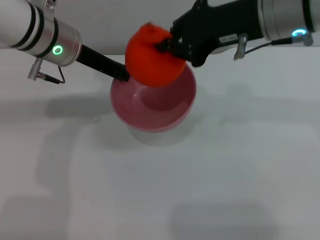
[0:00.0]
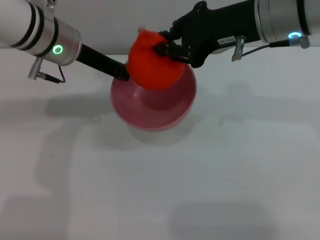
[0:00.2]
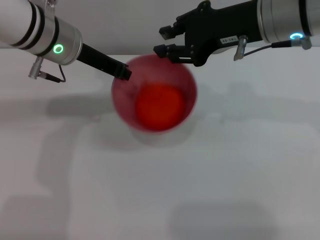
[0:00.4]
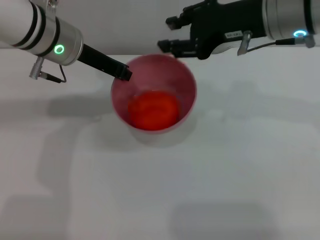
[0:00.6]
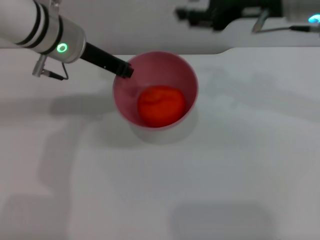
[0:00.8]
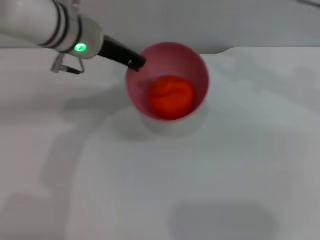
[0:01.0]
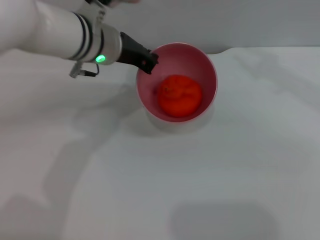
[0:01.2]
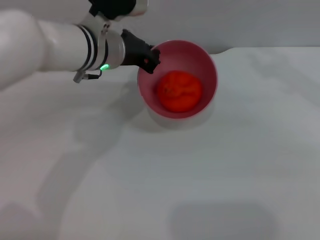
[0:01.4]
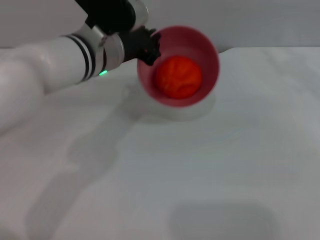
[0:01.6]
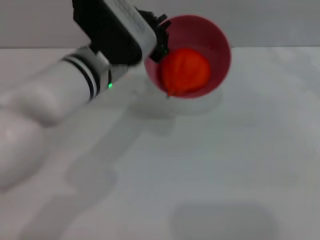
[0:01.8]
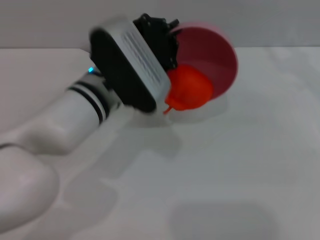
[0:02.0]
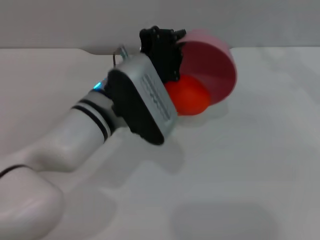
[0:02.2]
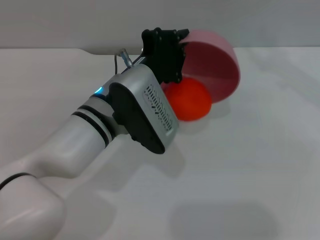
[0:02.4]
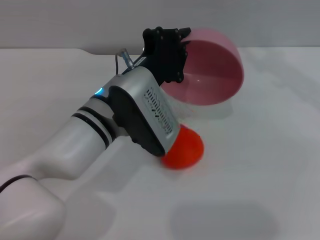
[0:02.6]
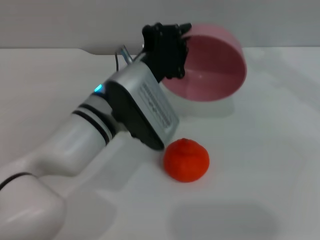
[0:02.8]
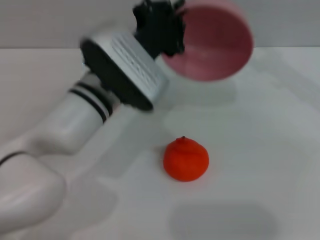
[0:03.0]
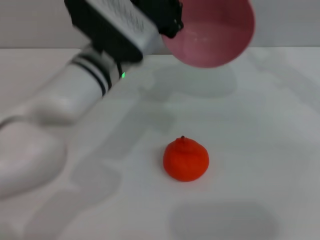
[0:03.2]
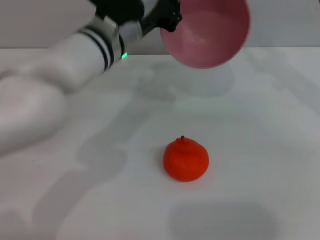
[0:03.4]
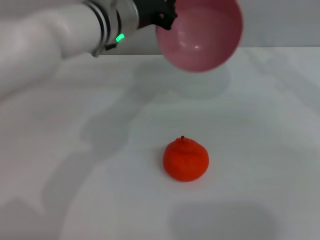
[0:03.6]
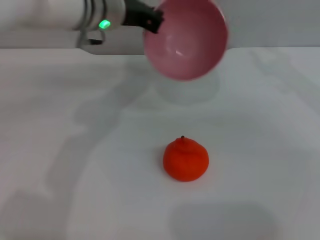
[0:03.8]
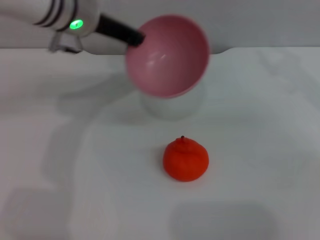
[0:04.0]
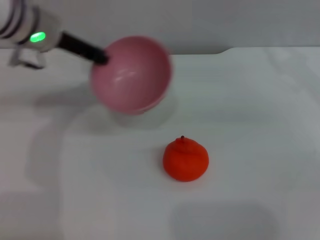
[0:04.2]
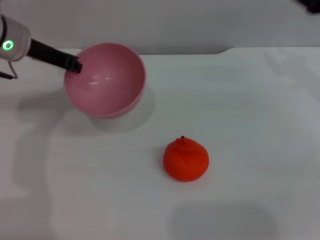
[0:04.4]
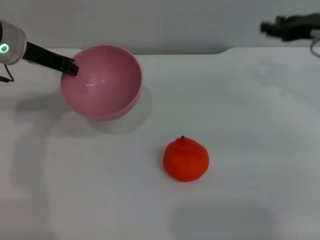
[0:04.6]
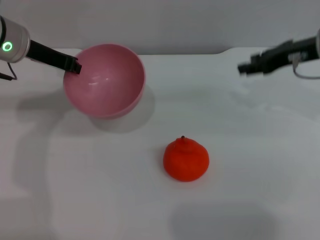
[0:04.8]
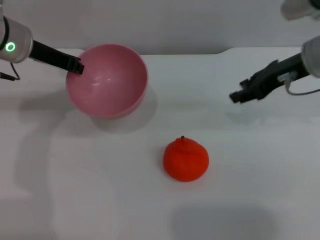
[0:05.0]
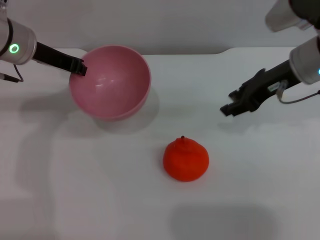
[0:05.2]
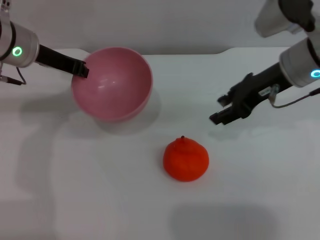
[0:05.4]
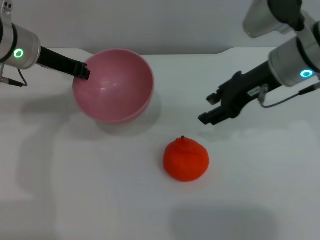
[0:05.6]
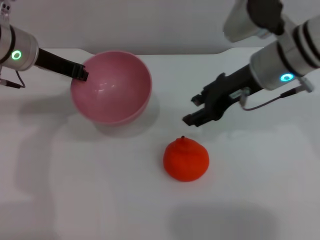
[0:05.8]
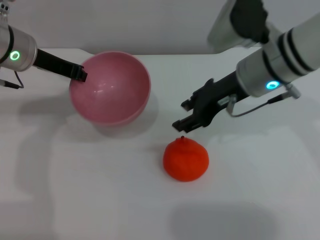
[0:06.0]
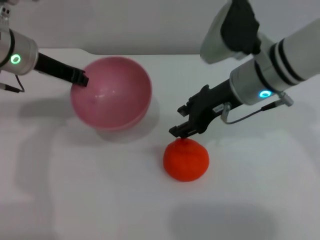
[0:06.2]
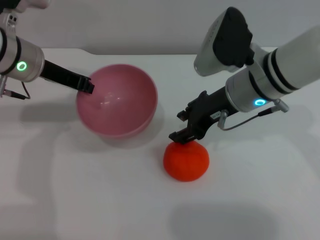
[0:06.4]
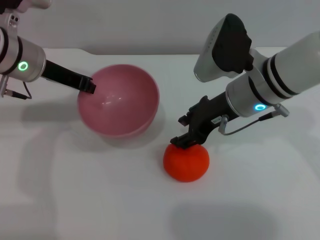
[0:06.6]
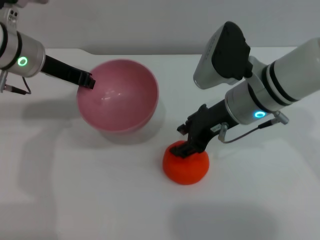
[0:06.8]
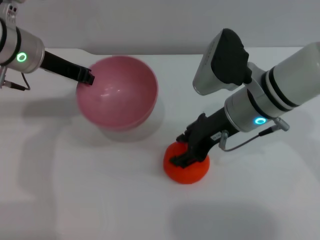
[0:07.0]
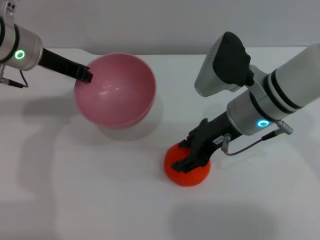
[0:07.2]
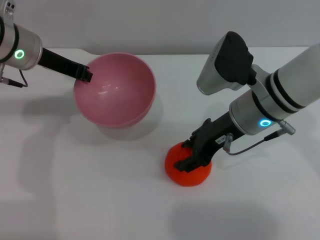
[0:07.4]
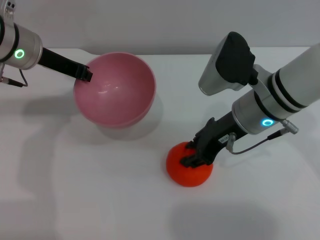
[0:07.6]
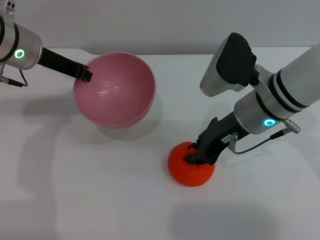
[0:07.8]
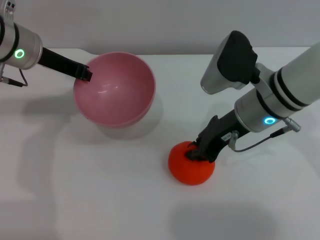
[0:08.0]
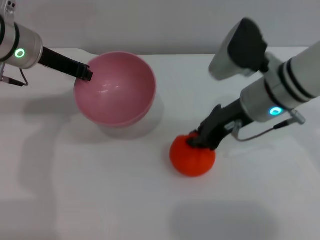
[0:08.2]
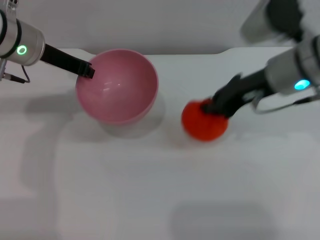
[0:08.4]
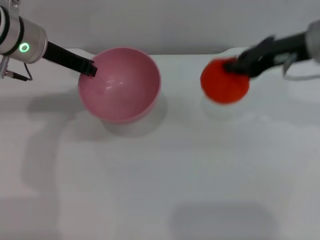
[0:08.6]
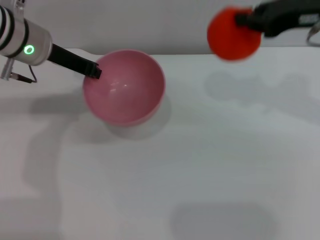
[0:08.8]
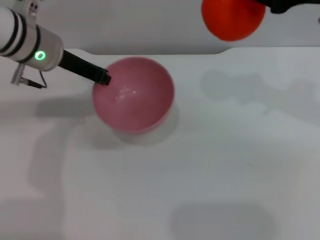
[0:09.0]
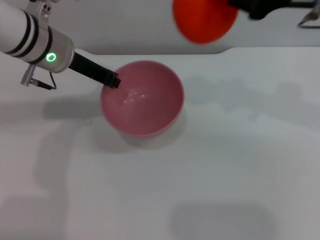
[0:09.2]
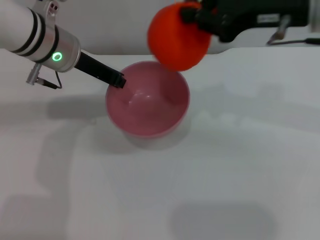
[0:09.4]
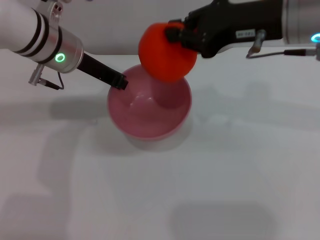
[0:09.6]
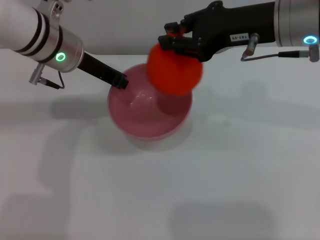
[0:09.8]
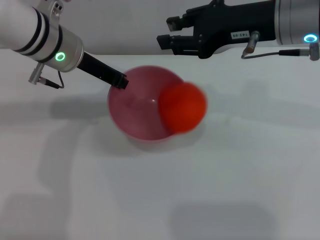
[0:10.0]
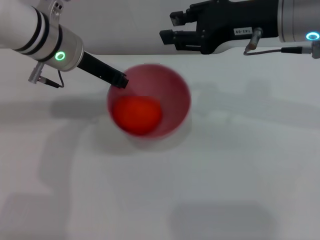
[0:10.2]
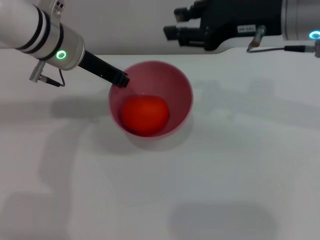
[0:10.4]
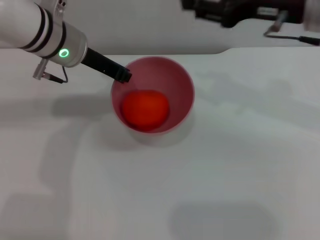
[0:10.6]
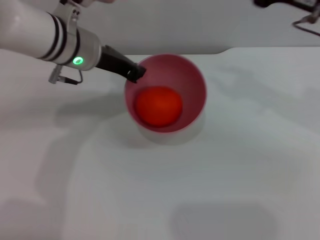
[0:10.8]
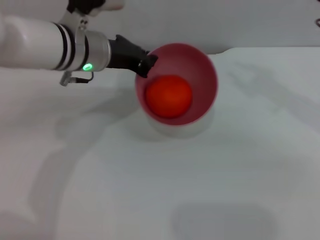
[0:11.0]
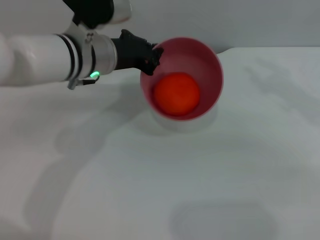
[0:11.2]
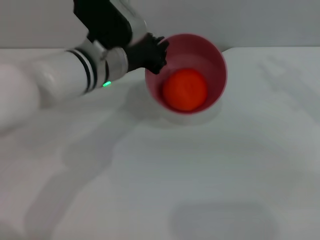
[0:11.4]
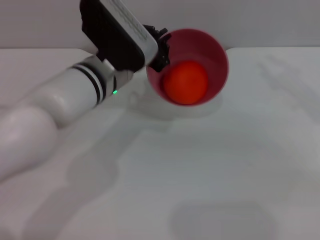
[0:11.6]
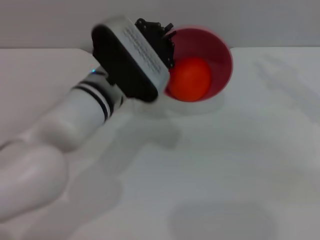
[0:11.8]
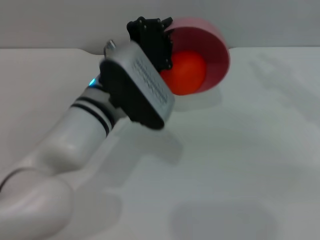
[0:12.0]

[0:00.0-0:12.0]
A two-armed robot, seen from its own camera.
Task of the whole recording: put the orange into the pink bowl and pour it out repeatedly.
Step, 0.6 to 3.0 s: Pour the orange out of the bowl.
Step, 3.2 to 8.6 s: Pick up the orange with the right gripper.
Step, 8.8 to 10.2 s: Place the orange into the bowl.
0.0 to 1.6 s: The right gripper travels to the right by about 15 cm, and opens its fingers. The left gripper heads to the right, covering approximately 5 cm.
1.6 to 3.0 s: The left gripper shifts roughly 5 cm backward.
3.0 to 4.4 s: The right gripper moves roughly 5 cm. Meanwhile the left gripper heads to the left and forward, covering some 20 cm.
4.4 to 6.0 s: The right gripper shifts approximately 20 cm to the left.
7.6 to 9.0 s: The right gripper moves upward and to the right, approximately 20 cm, and closes.
9.0 to 10.4 s: The right gripper shifts roughly 5 cm to the left, and opens its fingers.
10.4 to 12.0 s: The left gripper shifts roughly 15 cm backward, to the right and downward; the right gripper shifts roughly 10 cm to the right.

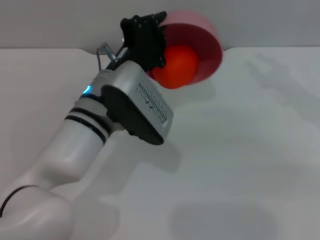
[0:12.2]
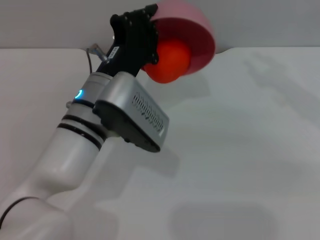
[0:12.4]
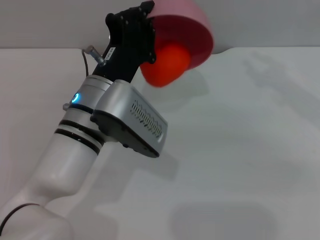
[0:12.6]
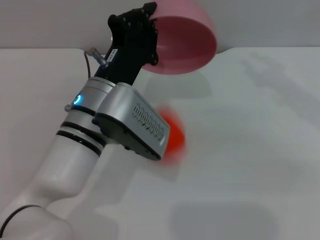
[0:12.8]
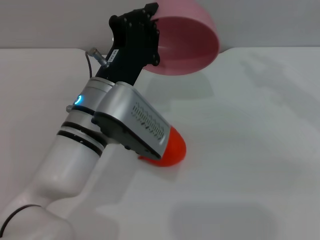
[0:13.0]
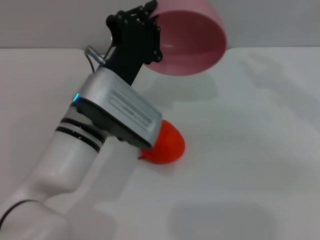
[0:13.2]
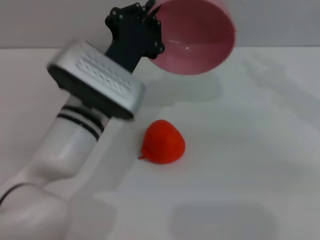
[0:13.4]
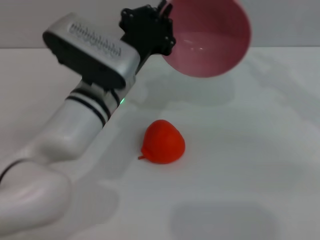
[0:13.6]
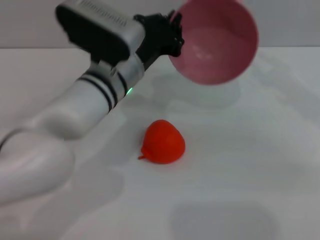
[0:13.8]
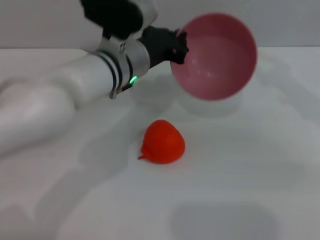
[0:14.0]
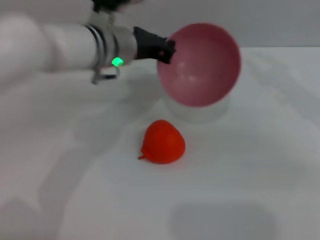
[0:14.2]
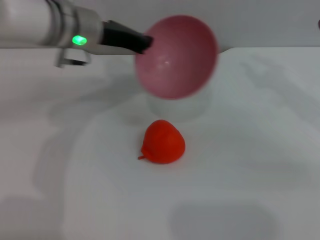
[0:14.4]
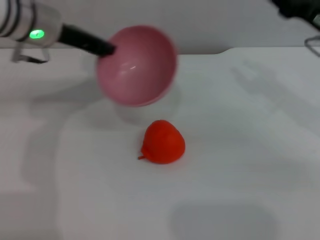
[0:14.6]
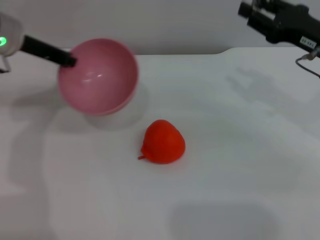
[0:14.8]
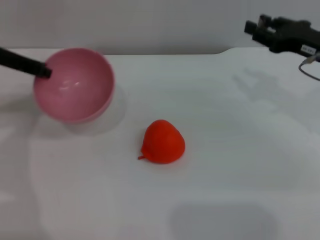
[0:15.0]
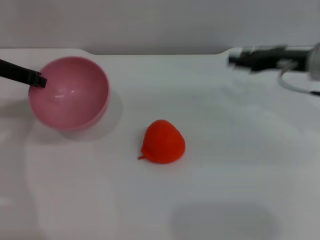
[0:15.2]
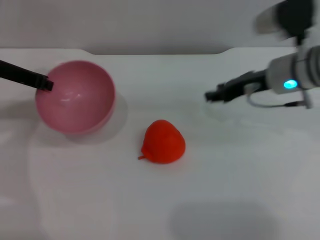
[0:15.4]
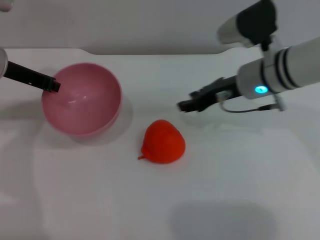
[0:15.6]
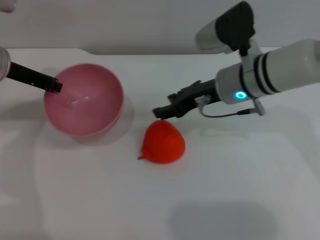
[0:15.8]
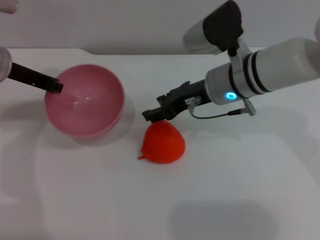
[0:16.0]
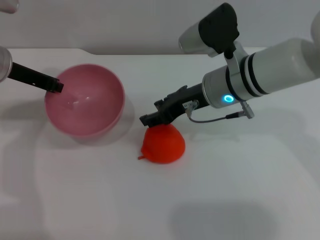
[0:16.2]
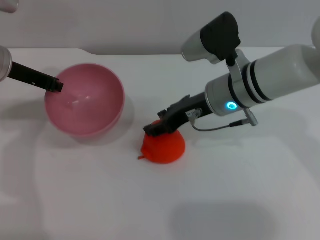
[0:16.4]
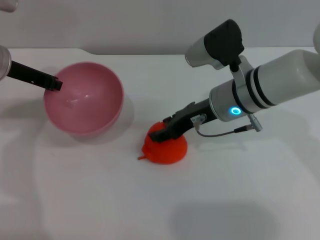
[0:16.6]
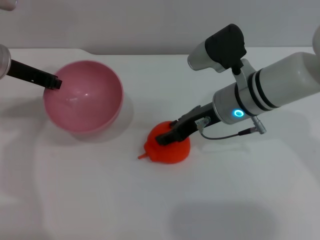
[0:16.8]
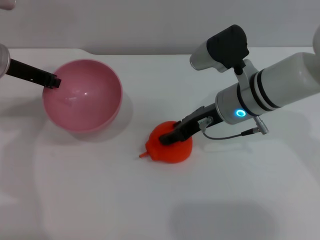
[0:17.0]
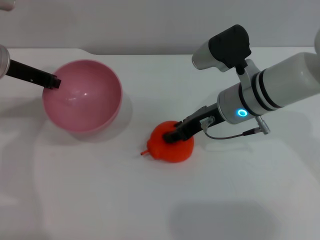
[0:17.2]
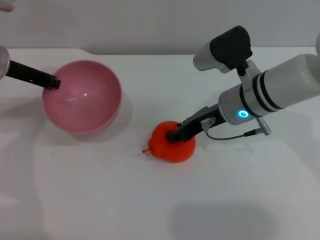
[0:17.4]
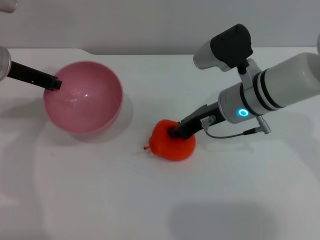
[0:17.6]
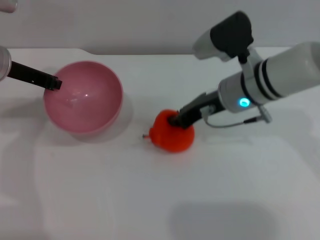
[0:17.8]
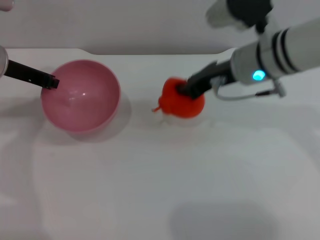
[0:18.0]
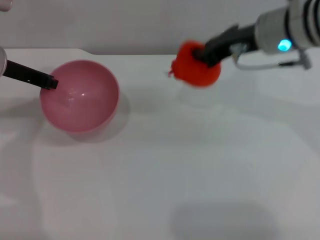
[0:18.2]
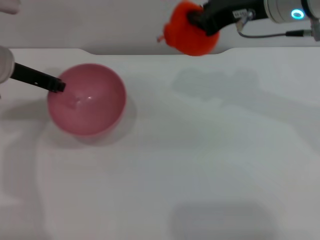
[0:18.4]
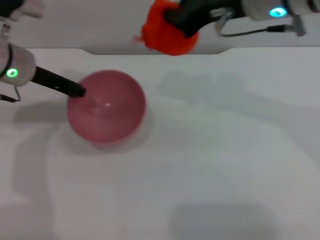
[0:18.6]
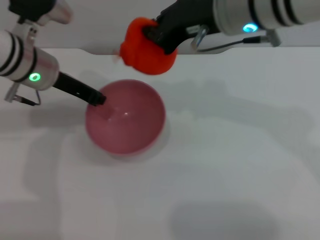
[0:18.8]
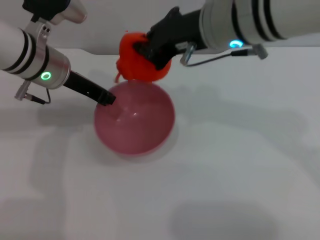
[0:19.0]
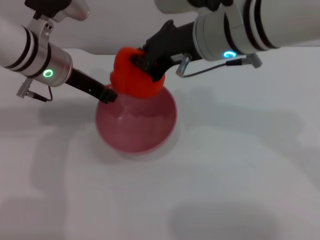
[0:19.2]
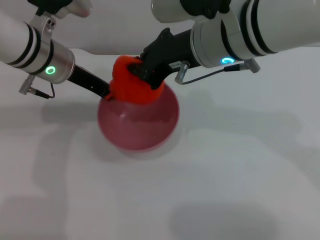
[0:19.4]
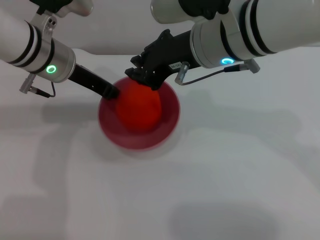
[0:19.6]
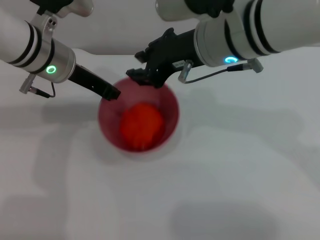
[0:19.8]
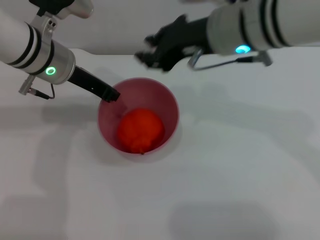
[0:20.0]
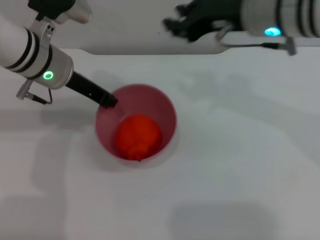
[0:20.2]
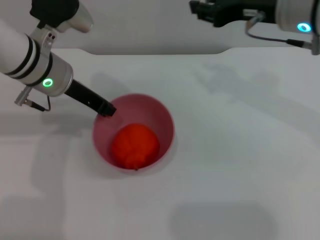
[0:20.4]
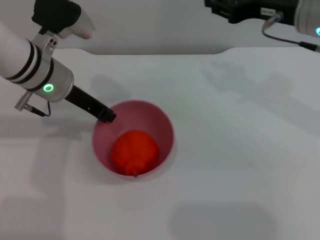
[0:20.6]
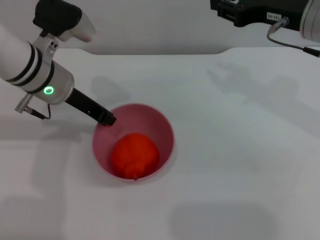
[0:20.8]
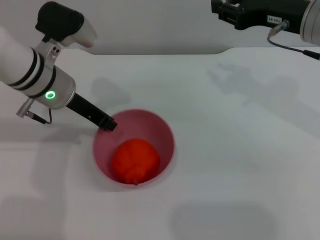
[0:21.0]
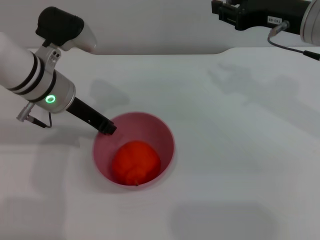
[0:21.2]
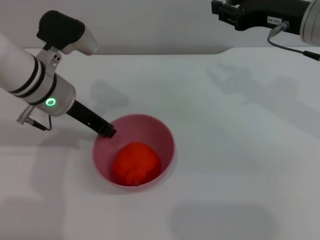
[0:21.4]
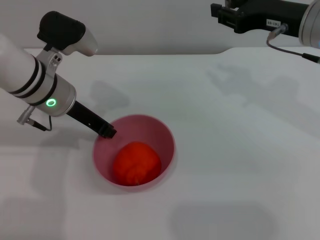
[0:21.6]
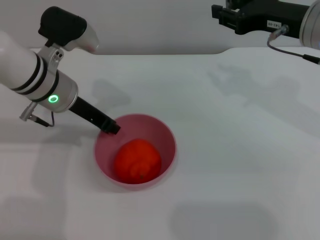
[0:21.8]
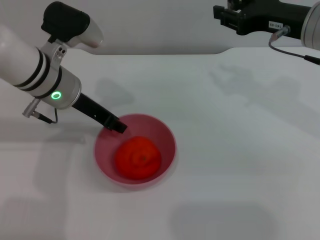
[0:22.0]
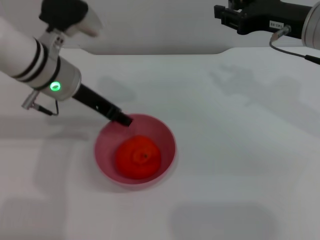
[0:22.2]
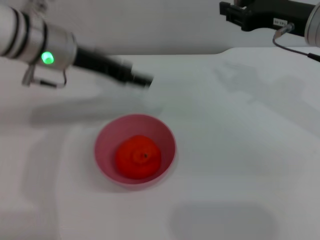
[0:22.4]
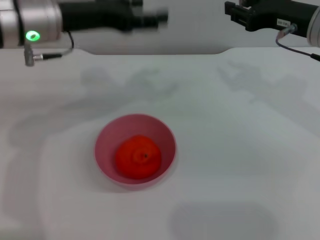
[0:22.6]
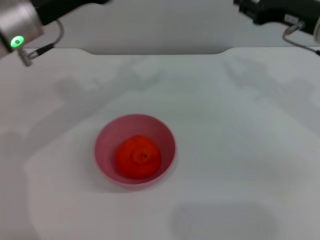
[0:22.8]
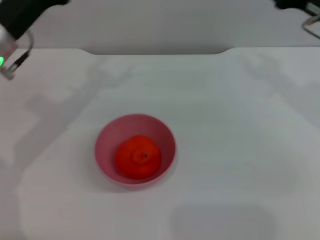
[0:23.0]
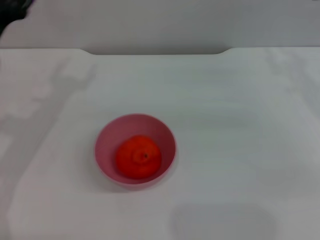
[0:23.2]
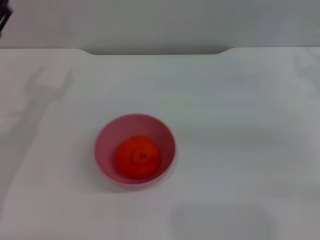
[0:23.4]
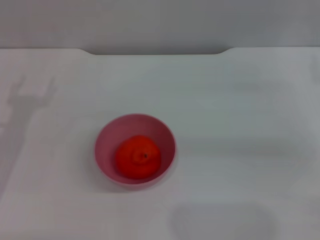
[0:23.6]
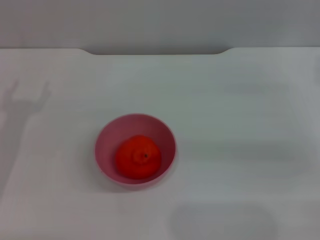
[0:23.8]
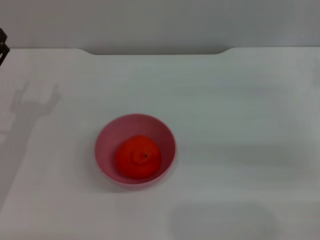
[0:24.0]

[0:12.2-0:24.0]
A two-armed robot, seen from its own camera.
Task of the whole recording: put the orange into the pink bowl and pour it out repeatedly.
Step, 13.2 to 18.2 s: Pick up the orange with the right gripper.
Step, 18.6 to 19.8 s: Place the orange into the bowl.
Step, 20.0 to 22.2 s: Place the bowl on the table.
13.6 to 15.2 s: The right gripper ends up roughly 5 cm from where it was, while the left gripper is displaced to the left by roughly 20 cm.
15.2 to 16.6 s: The right gripper travels to the left by about 15 cm.
16.6 to 18.2 s: The right gripper goes approximately 10 cm upward, and closes its fingers.
18.2 to 19.6 s: The left gripper heads to the right, covering approximately 10 cm. Meanwhile the right gripper travels to the left by about 10 cm.
19.6 to 21.0 s: The right gripper shifts some 15 cm to the right.
21.0 to 22.6 s: The left gripper heads upward, covering approximately 5 cm, and opens.
22.6 to 24.0 s: The right gripper travels to the right and downward by roughly 15 cm. Meanwhile the left gripper goes about 20 cm downward, to the left and backward.
